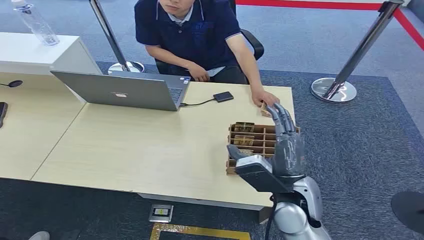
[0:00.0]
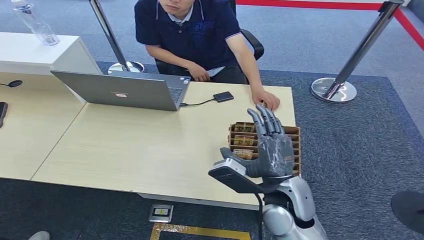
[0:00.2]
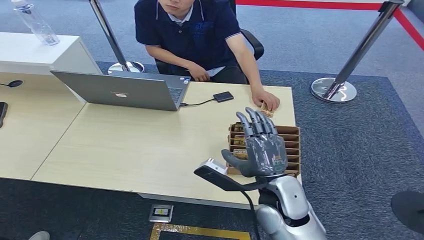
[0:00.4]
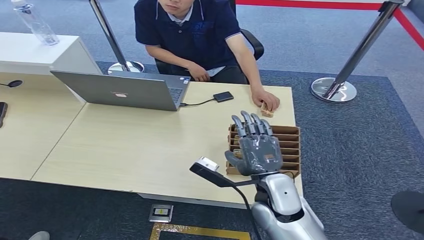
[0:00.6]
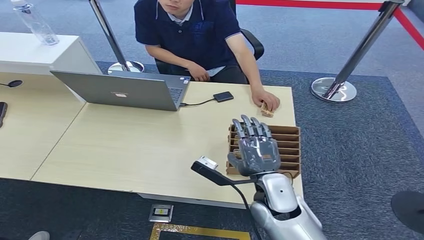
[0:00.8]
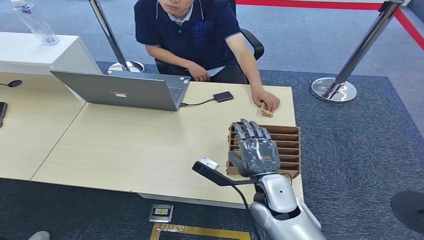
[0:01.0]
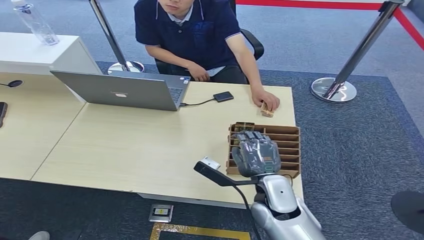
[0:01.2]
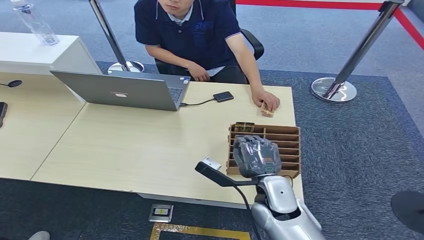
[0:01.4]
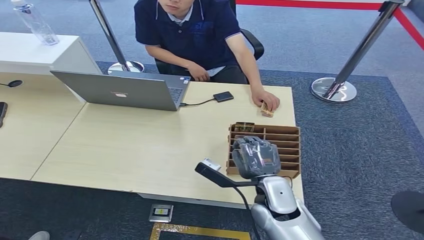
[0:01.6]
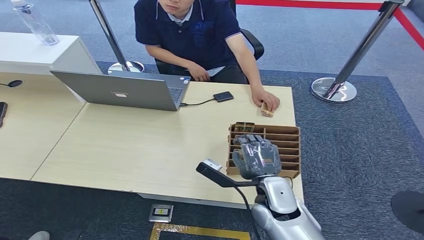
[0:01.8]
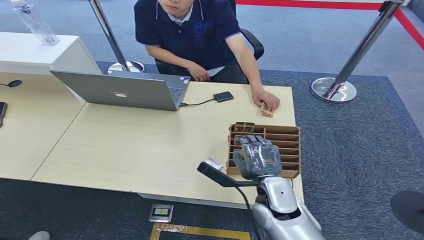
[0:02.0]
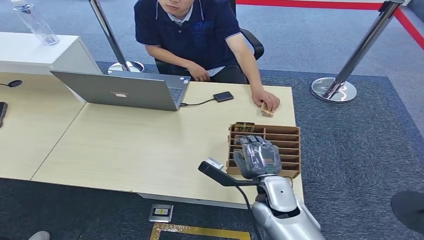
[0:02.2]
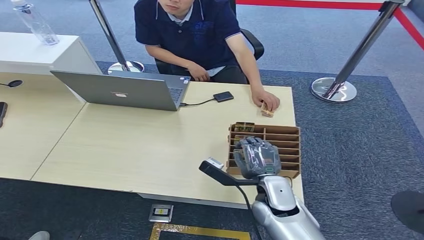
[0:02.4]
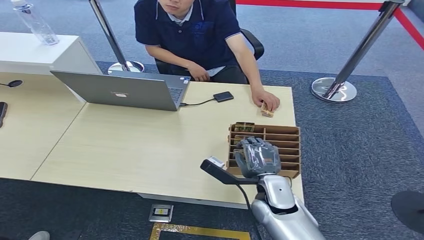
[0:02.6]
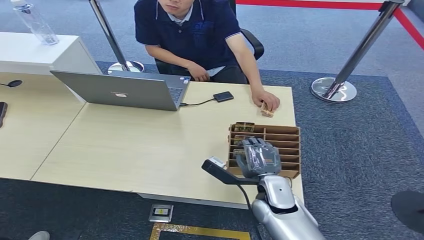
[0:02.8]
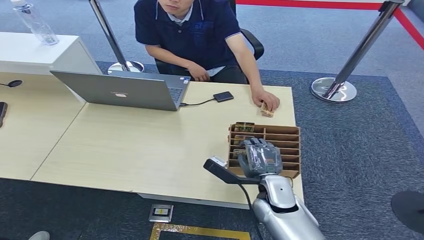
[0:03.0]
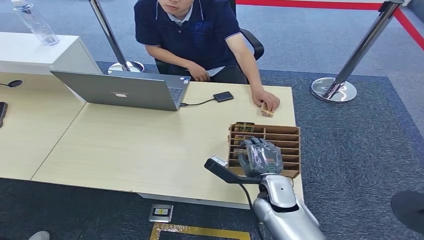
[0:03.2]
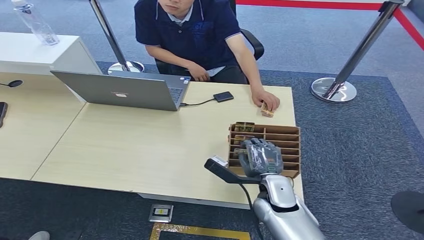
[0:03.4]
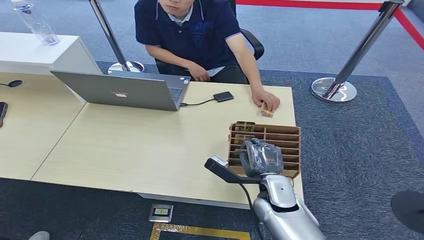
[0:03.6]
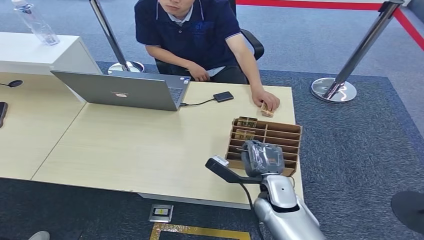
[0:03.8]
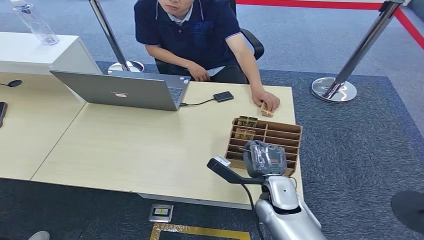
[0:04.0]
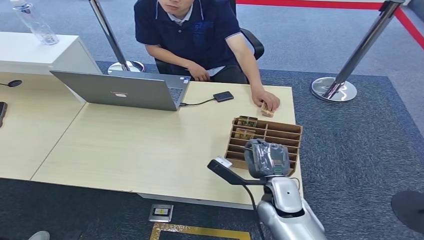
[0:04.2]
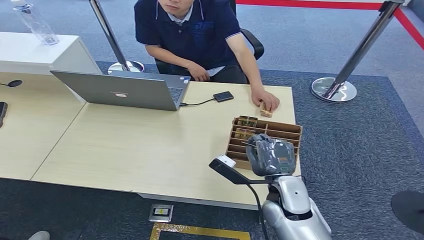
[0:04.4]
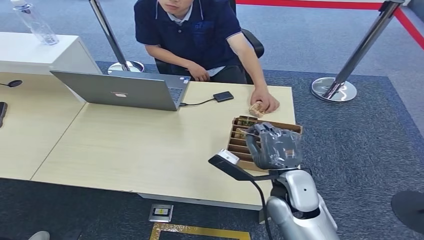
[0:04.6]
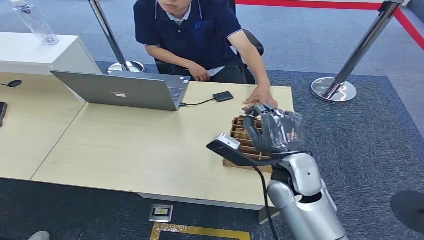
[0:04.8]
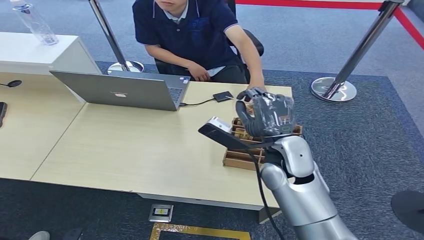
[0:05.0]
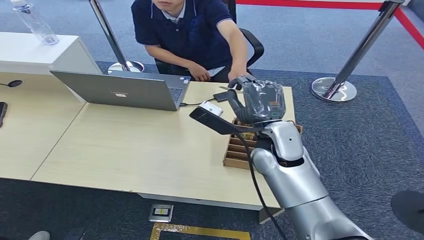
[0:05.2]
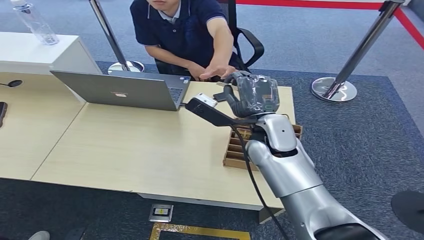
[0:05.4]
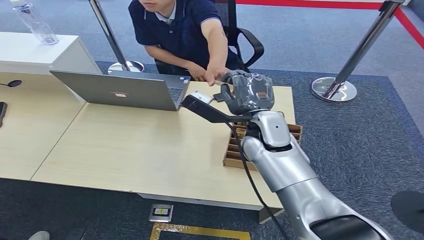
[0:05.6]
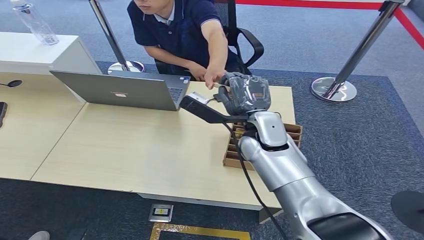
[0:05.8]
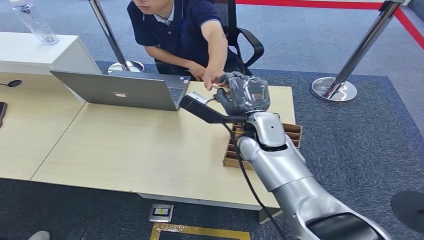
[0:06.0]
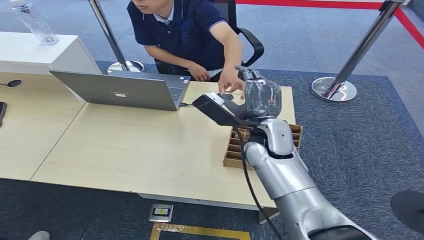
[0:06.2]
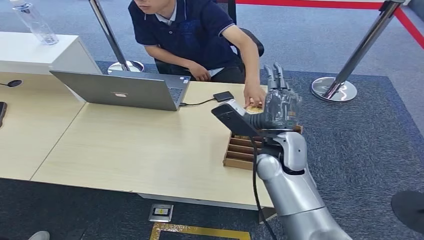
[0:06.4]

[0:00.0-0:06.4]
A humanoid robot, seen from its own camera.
Task of the whole recording: Pick up the card and hand it over to the target person.
Step, 0:00.0 to 0:03.6: Pick up the key card from the card box.
Step, 0:04.0 to 0:06.4: Hand the key card to the target.
0:01.6 to 0:03.2: The hands move only a little.
0:03.2 to 0:04.8: The right hand shifts roughly 15 cm upward and forward.
0:04.8 to 0:06.4: The right hand moves backward, roughly 5 cm.
